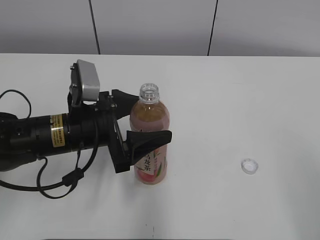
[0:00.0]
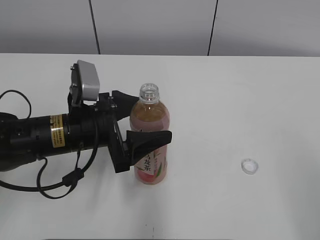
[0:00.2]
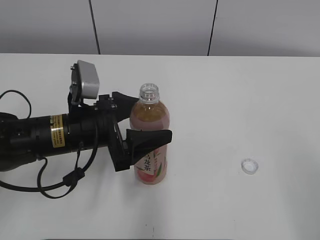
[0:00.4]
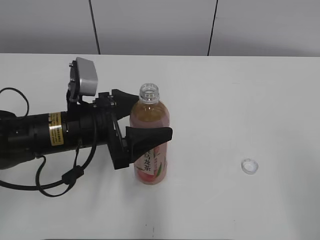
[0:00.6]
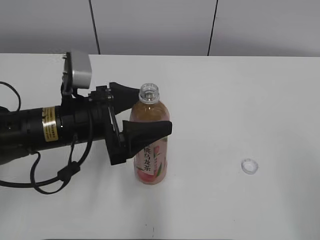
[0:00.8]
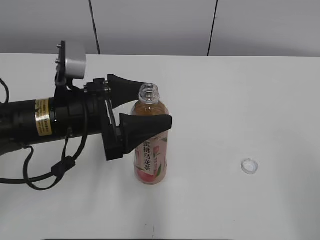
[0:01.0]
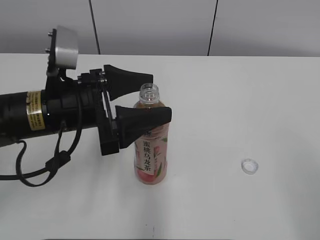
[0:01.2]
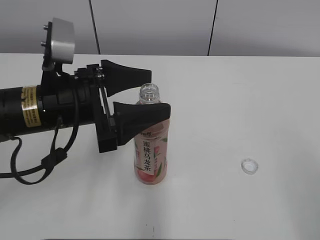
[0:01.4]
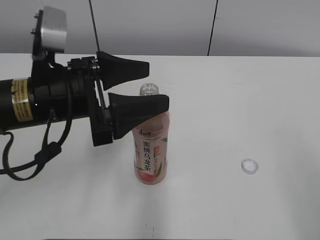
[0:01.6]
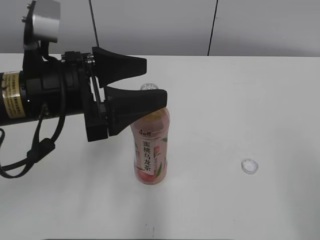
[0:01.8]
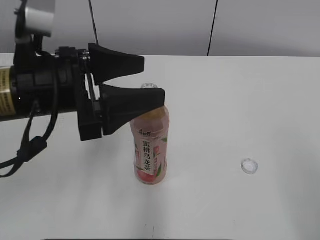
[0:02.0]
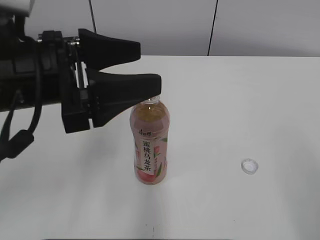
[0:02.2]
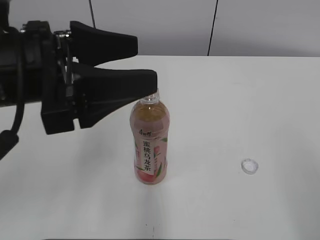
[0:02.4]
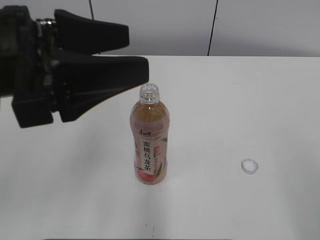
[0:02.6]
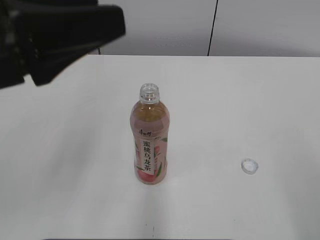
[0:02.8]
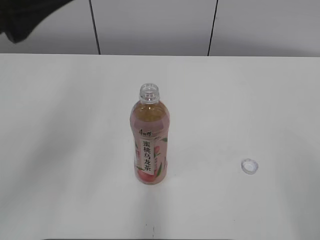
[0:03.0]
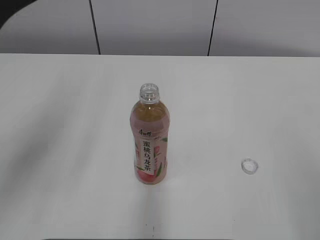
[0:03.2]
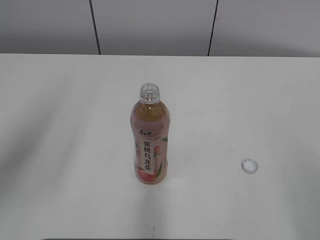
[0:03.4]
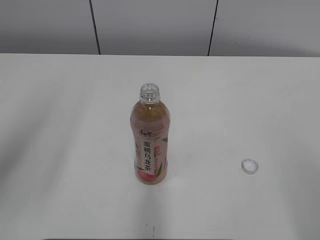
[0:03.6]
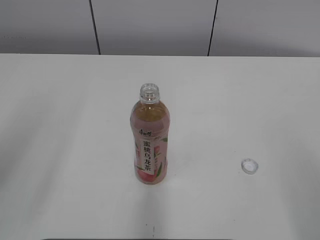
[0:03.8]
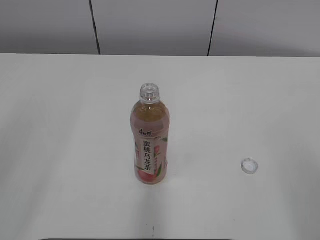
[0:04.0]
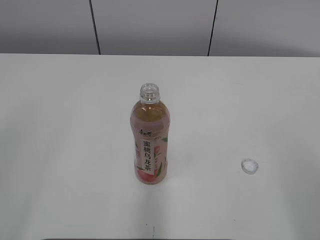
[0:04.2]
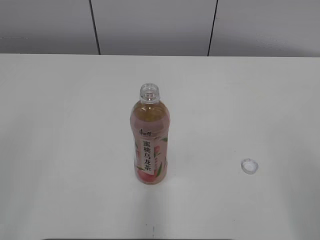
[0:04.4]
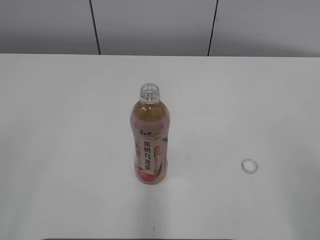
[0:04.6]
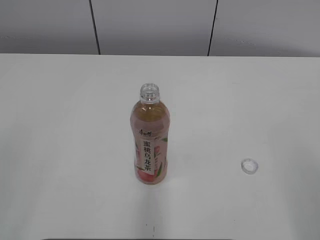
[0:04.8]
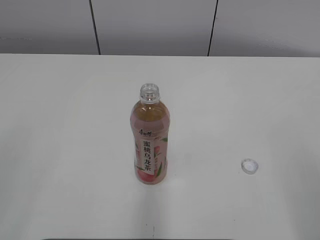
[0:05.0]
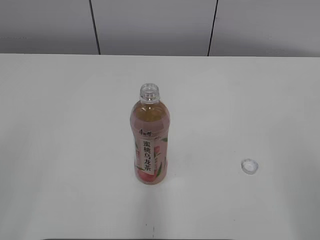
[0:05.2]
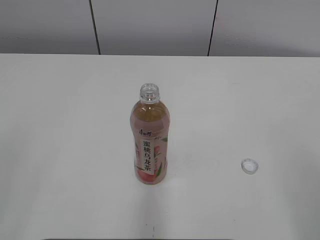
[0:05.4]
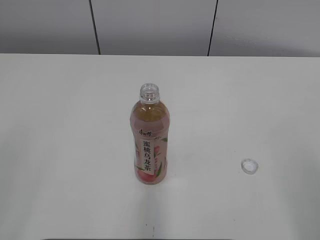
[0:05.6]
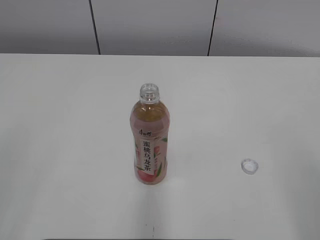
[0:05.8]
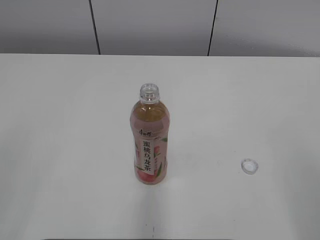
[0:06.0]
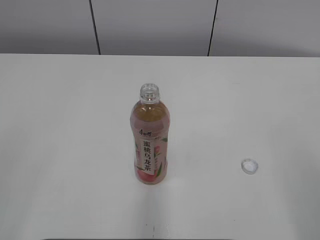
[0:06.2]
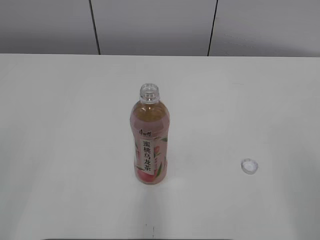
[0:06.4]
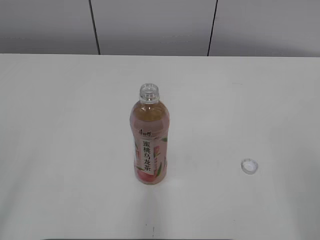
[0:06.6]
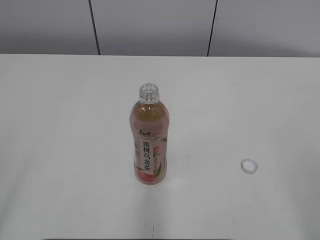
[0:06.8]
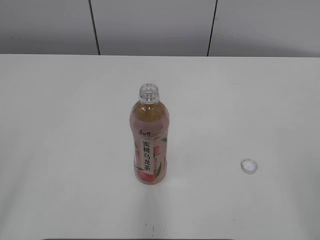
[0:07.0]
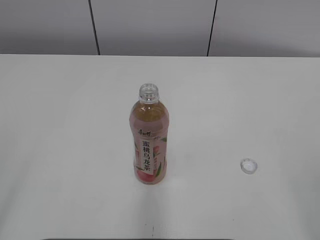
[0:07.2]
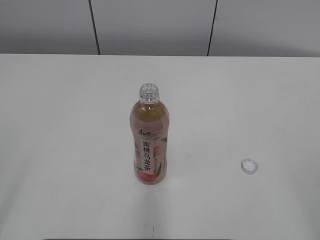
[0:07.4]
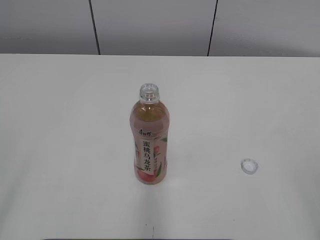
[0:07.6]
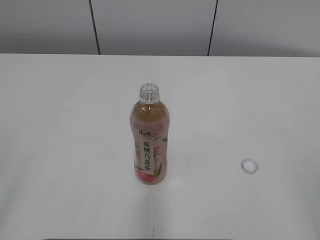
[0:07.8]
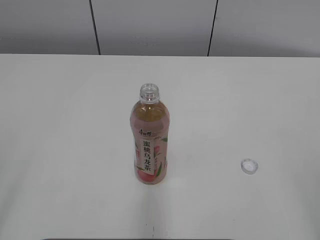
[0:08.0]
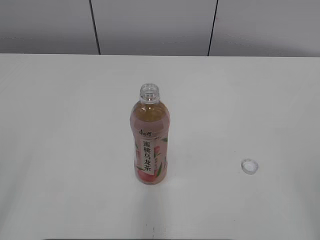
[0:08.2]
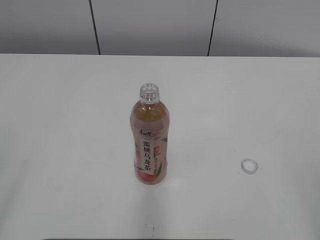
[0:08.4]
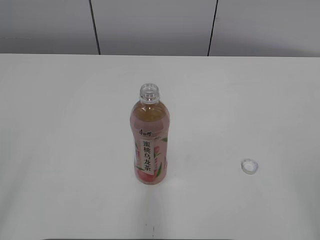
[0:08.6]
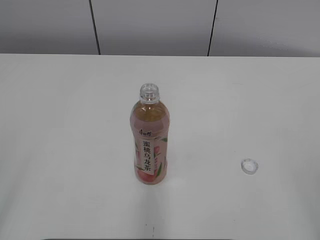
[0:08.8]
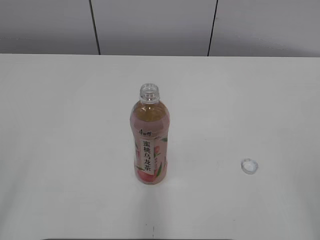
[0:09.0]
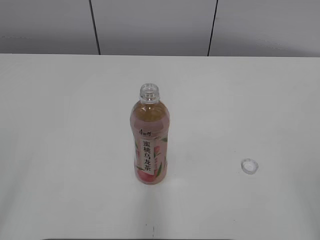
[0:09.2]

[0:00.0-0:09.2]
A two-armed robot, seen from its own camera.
0:00.0 to 0:01.6: The left gripper travels upward by some 10 cm.
0:01.6 to 0:03.0: The left gripper travels upward, backward and to the left by about 15 cm.
0:03.0 to 0:04.6: The left gripper moves backward and to the left, some 20 cm.
0:07.6 to 0:09.2: The two grippers keep their place.
